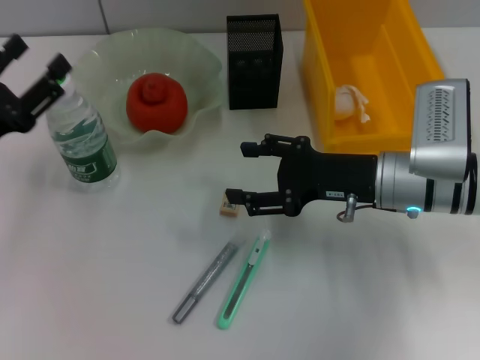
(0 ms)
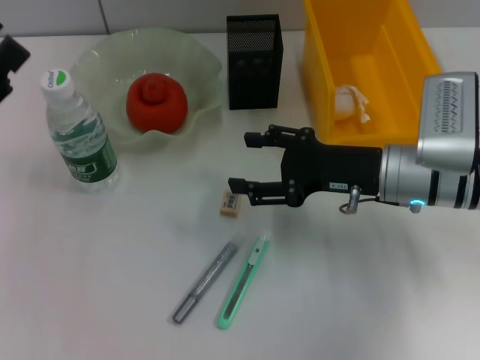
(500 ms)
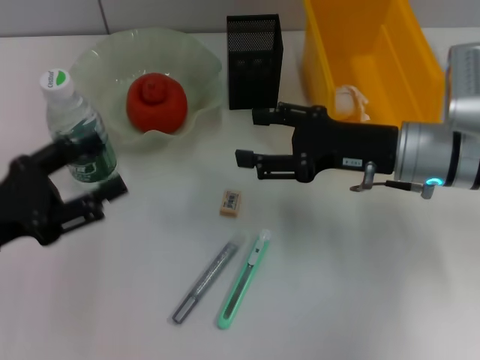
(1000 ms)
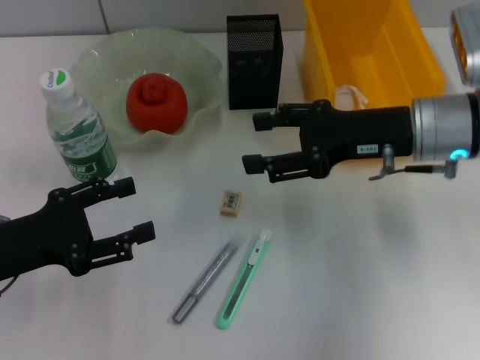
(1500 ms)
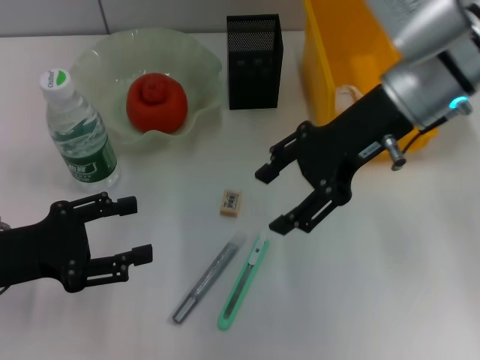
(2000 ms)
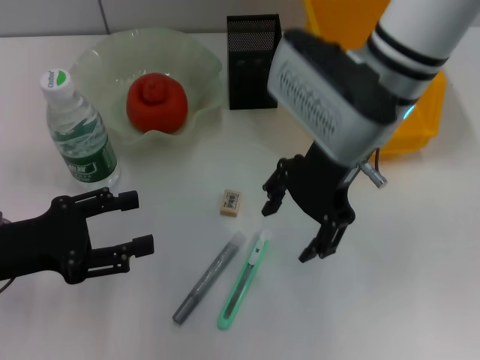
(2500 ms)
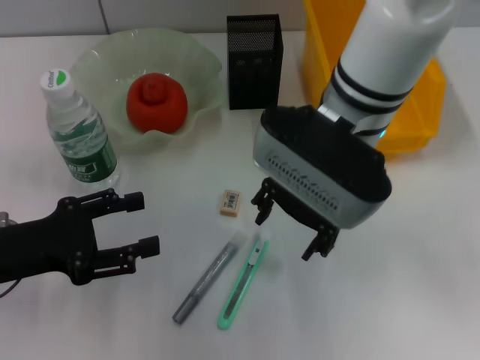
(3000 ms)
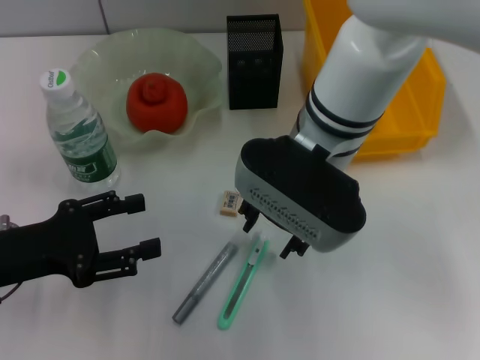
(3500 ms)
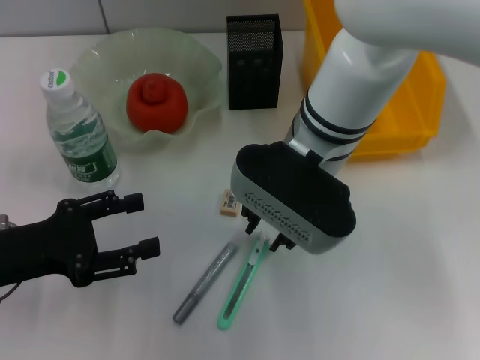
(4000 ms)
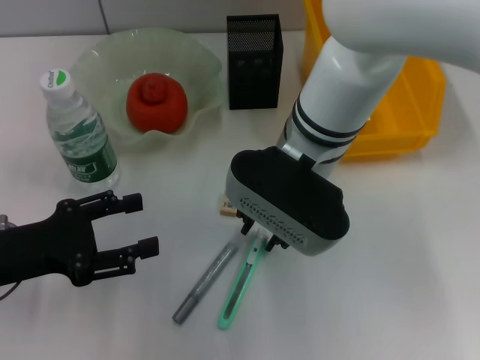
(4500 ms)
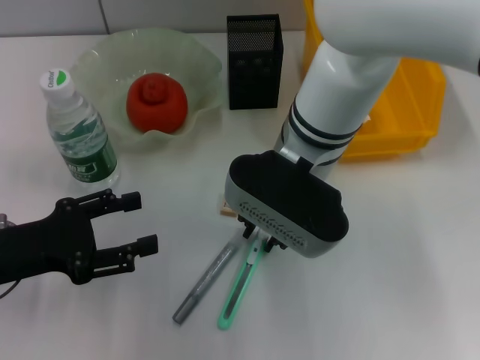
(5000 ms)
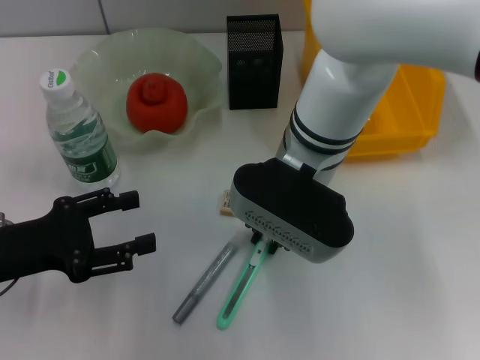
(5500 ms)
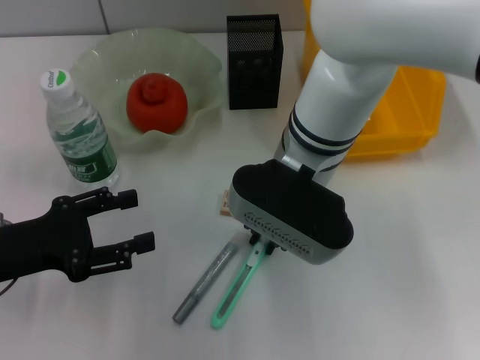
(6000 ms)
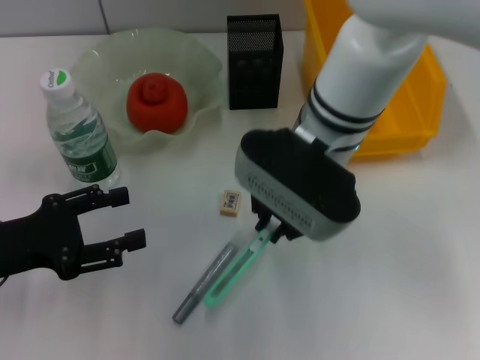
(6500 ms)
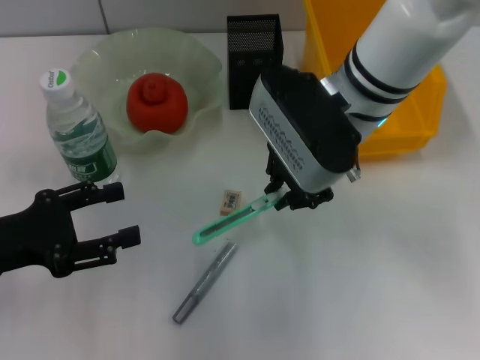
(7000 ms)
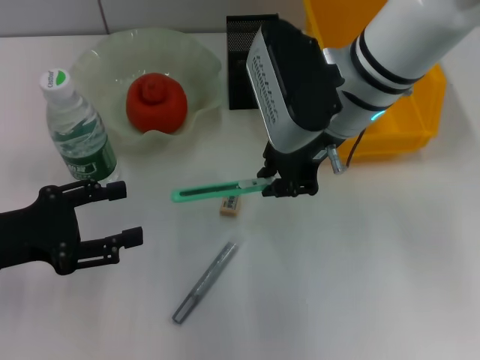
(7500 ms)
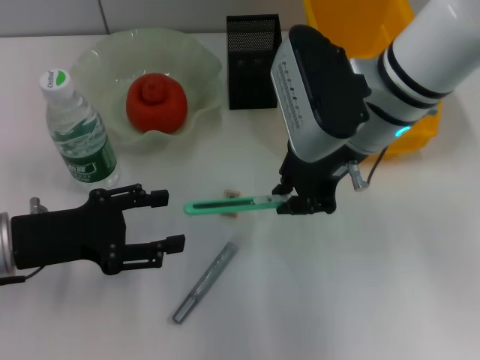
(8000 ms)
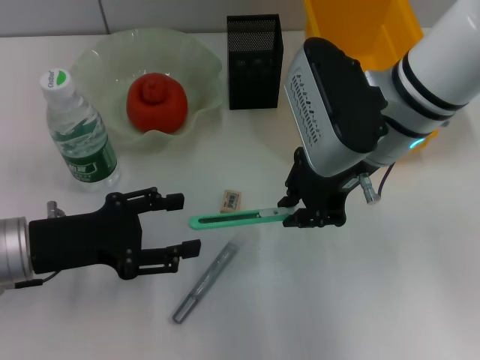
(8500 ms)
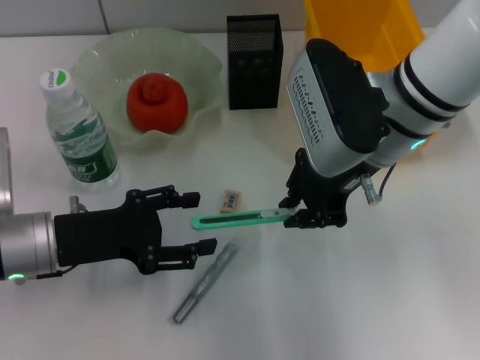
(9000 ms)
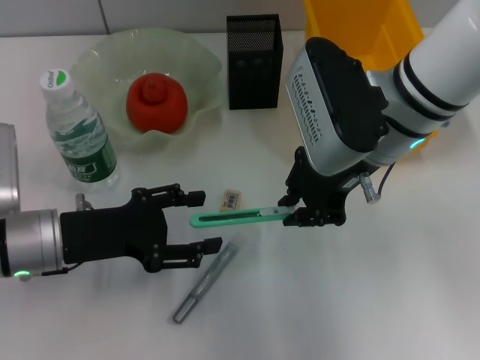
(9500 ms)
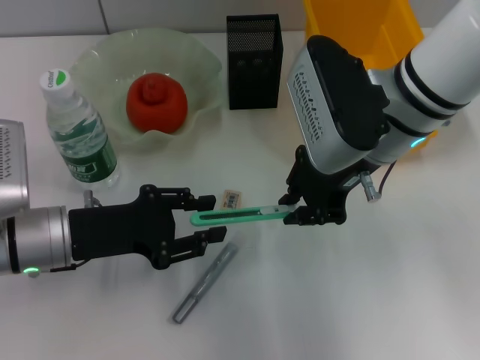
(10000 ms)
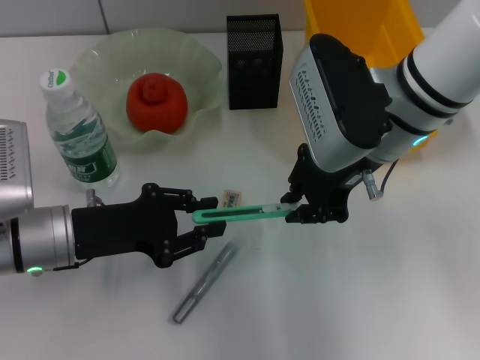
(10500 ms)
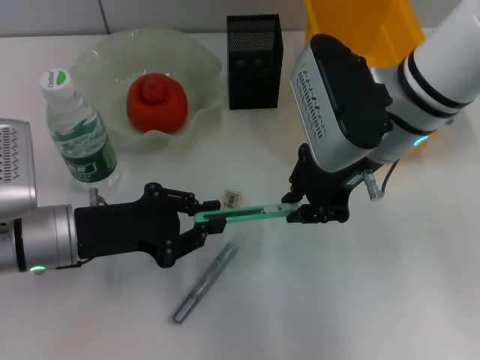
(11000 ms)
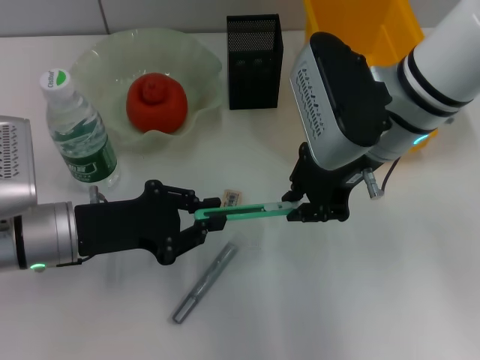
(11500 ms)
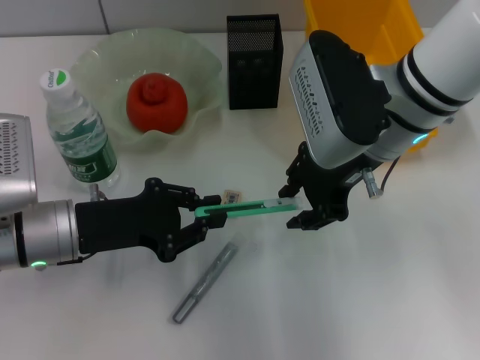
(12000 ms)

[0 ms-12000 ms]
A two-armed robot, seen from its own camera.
Step, 0 ms to 6000 ms: Grab the blue utility knife with the right hand.
Step, 6500 ms to 12000 ms: Pass the blue utility knife from the right hand to the left hand.
0 ms to 2000 ms: The right gripper goes approximately 15 cm upward.
2000 ms to 4000 ms: The right gripper moves to the left, roughly 10 cm, and closes up.
4000 ms to 6000 ms: There are only small adjustments of the grippers.
6000 ms to 8000 ms: The right gripper shifts approximately 5 cm to the right.
8000 ms to 10000 ms: The grippers make only small movements.
10000 ms to 12000 ms: The left gripper closes.

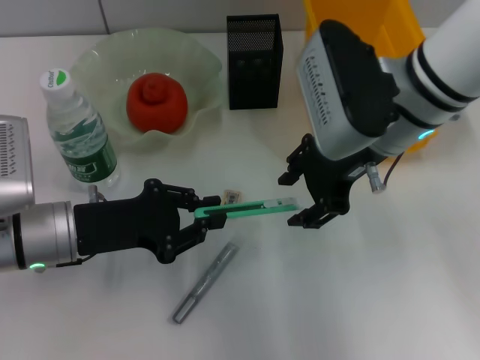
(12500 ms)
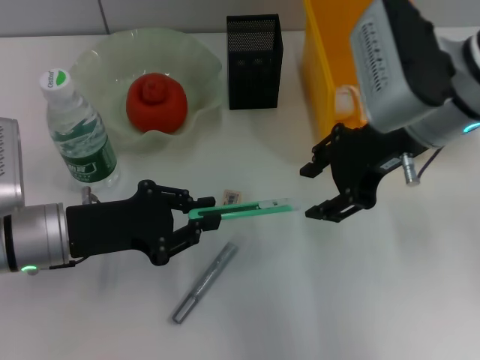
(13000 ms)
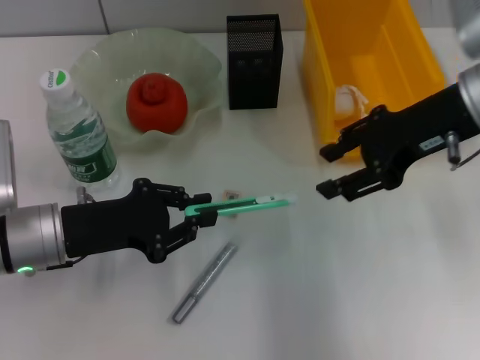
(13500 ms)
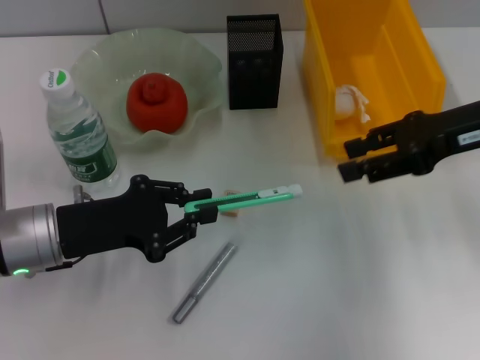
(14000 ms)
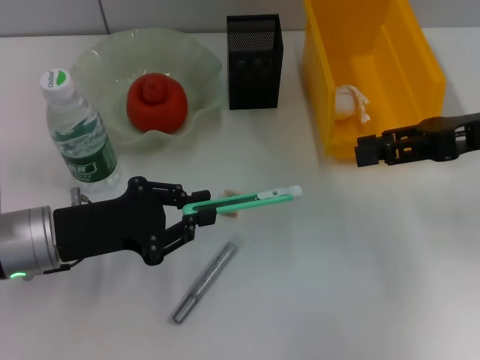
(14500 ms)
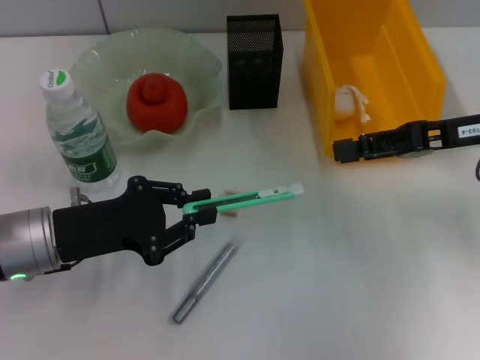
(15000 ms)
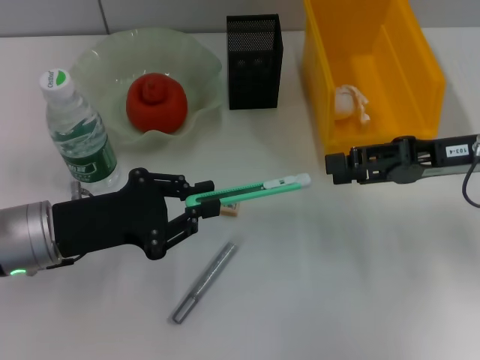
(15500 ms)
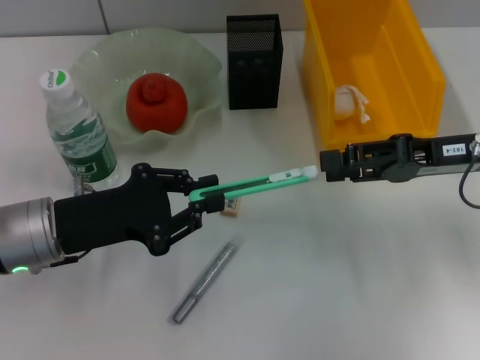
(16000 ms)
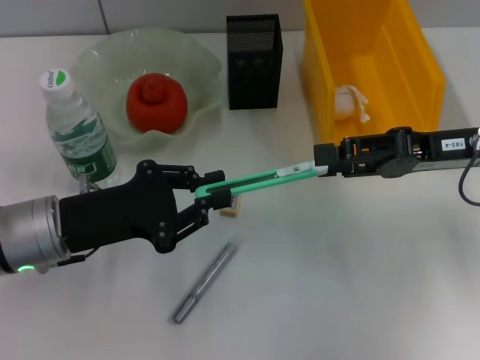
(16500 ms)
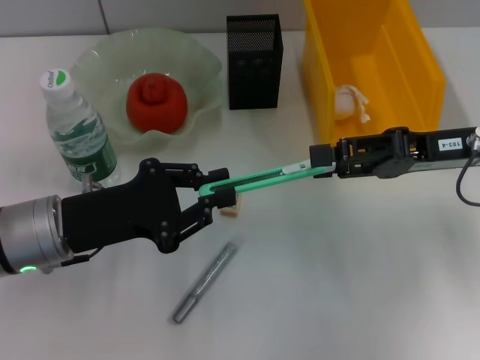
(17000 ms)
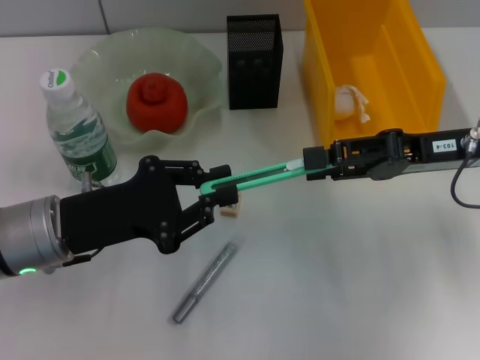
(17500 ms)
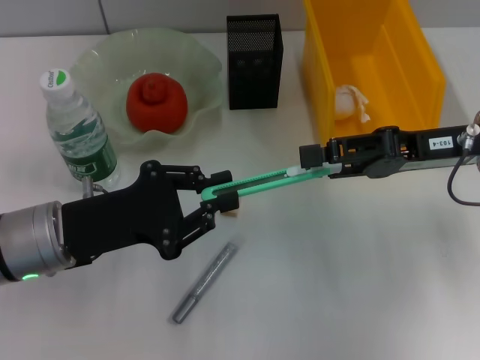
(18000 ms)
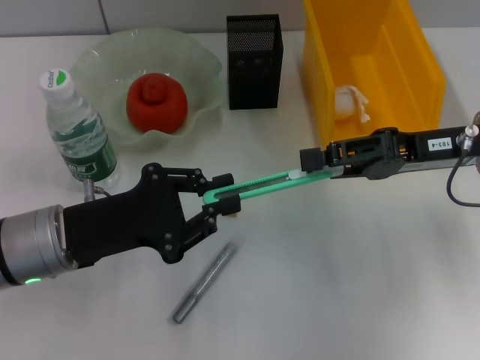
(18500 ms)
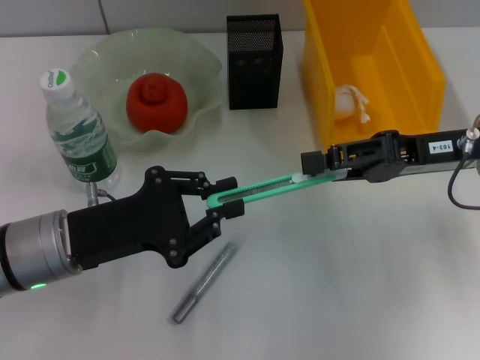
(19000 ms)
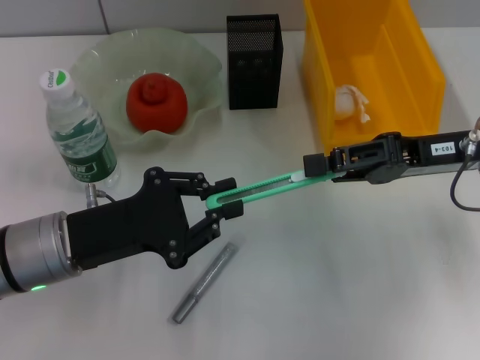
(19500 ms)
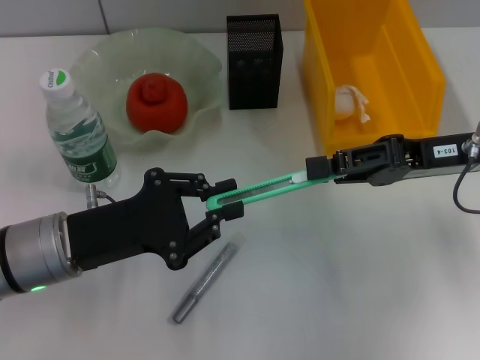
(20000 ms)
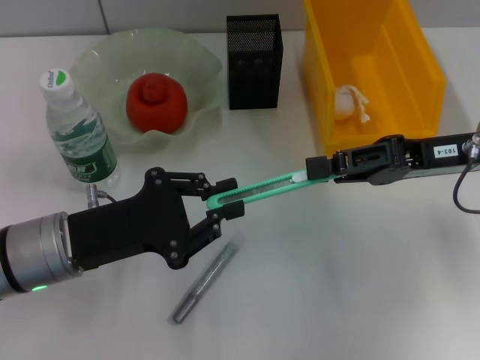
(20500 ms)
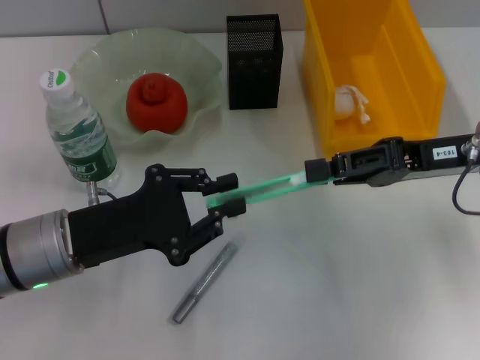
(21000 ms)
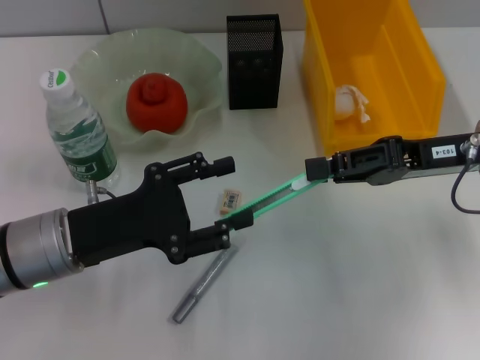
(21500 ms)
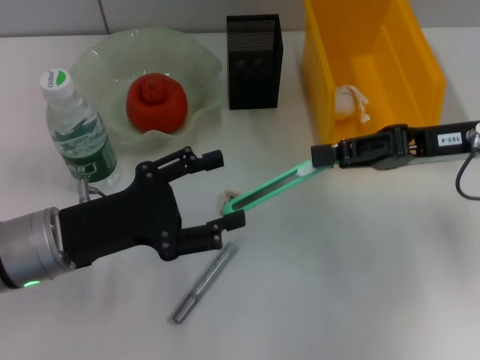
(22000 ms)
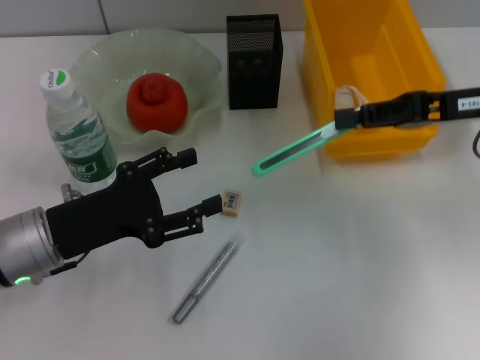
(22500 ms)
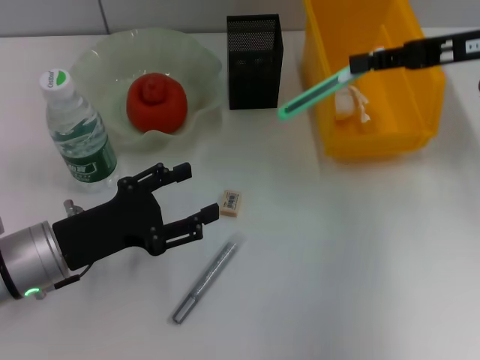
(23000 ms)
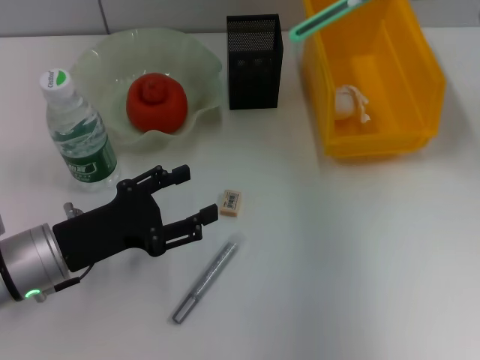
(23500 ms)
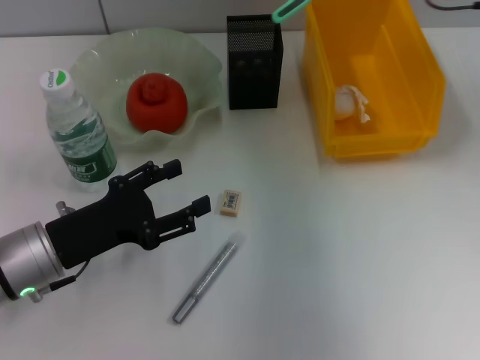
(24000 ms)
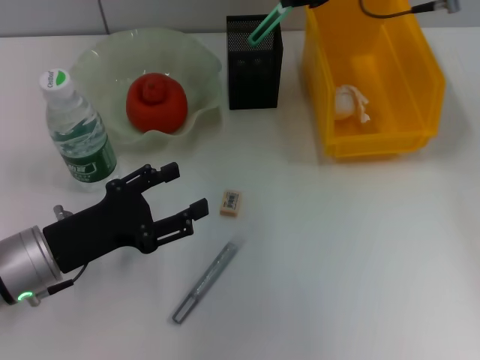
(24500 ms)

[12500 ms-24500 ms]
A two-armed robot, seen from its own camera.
Step, 12500 ms to 20500 ms: Pass the blue utility knife from the left hand to the right hand.
12500 ms to 14500 ms: The right gripper moves to the right, some 15 cm.
16500 ms to 18500 ms: The grippers stay close to where they were, moving slightly.
18500 ms to 20500 ms: Neither gripper changes place.
20500 ms to 22500 ms: The left gripper opens up; the right gripper changes place by about 5 cm.
22500 ms to 24500 ms: The right gripper travels forward, to the left and upward by about 15 cm.

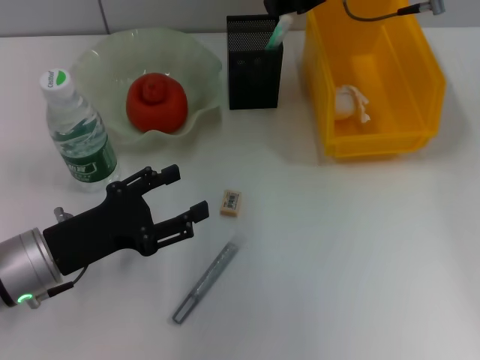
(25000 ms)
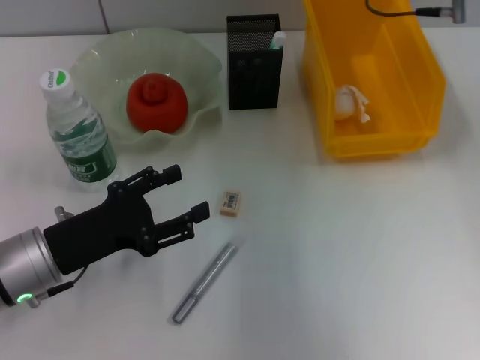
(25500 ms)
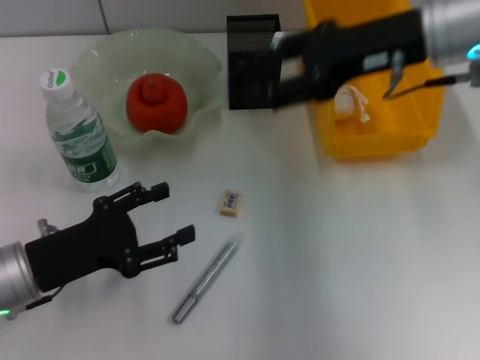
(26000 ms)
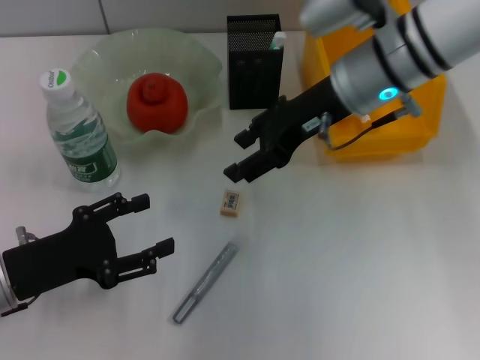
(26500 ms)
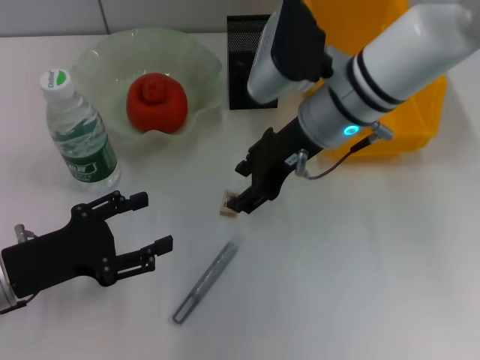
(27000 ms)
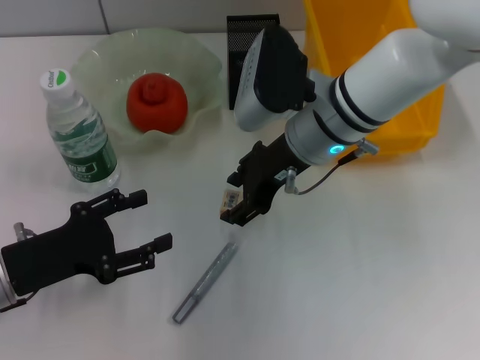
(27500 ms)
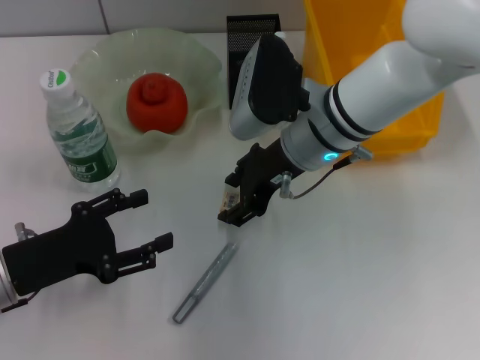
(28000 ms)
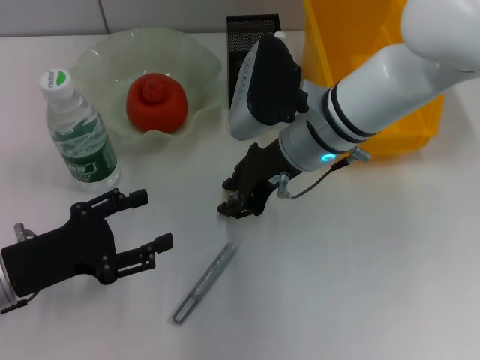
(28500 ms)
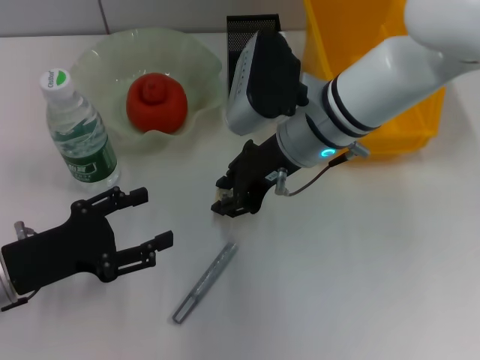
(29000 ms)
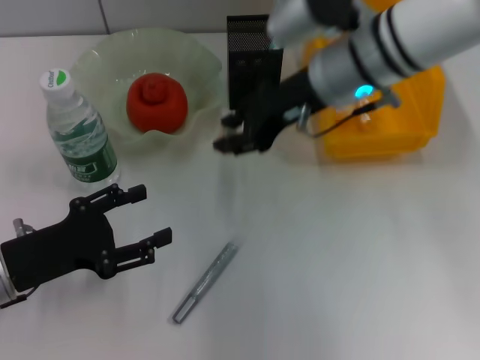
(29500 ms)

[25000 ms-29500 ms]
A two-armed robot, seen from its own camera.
Step, 25500 ms to 28500 ms: Grab the eraser with the right hand.
25000 ms to 27000 ms: The right gripper is displaced downward, backward and to the left by approximately 15 cm, and opens.
27000 ms to 29500 ms: The right gripper closes its fingers.
